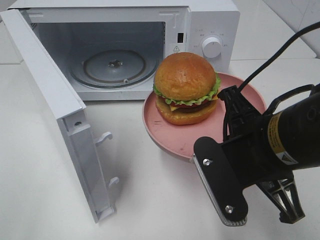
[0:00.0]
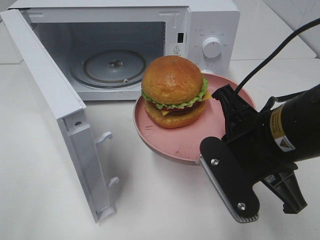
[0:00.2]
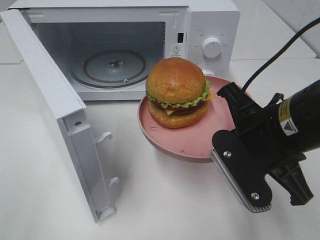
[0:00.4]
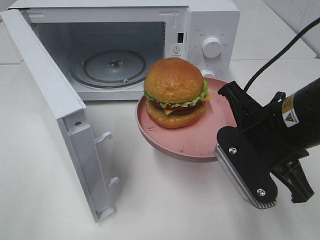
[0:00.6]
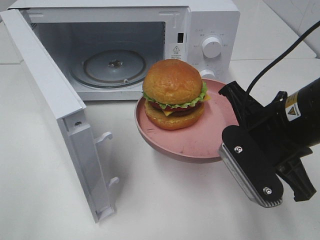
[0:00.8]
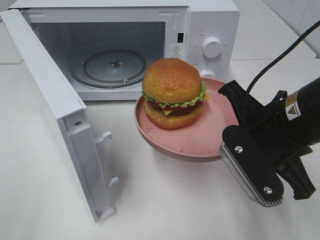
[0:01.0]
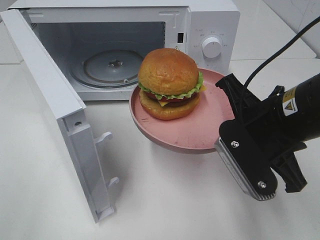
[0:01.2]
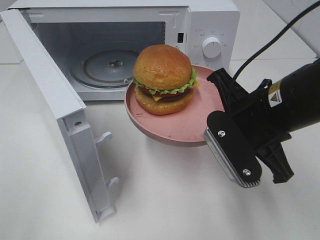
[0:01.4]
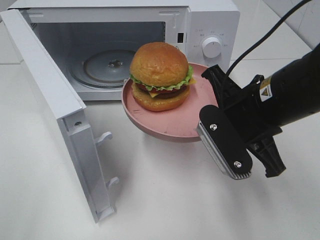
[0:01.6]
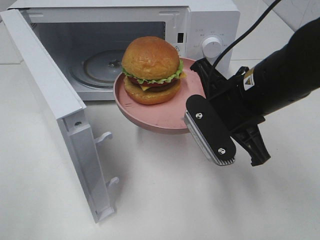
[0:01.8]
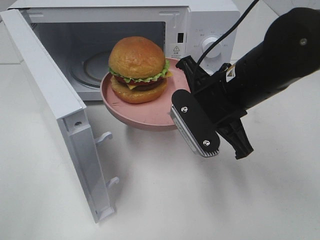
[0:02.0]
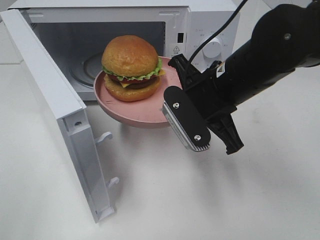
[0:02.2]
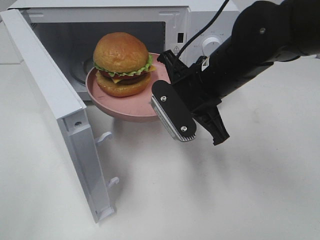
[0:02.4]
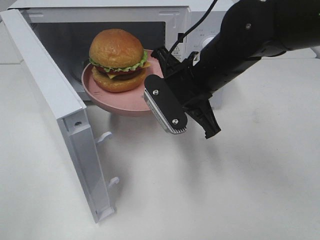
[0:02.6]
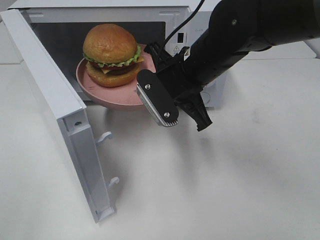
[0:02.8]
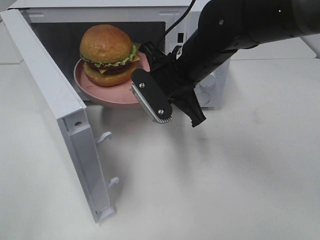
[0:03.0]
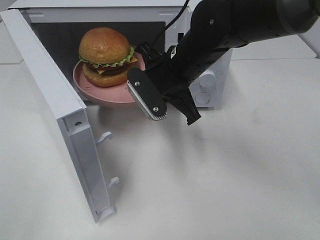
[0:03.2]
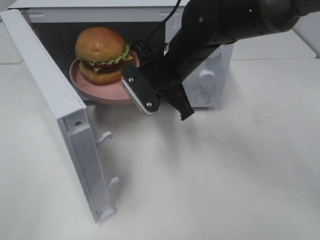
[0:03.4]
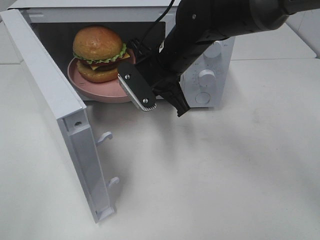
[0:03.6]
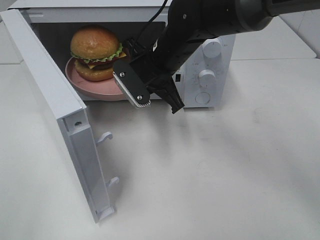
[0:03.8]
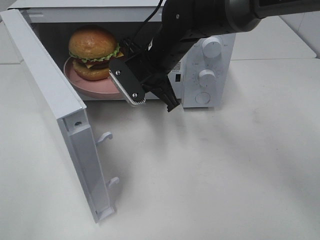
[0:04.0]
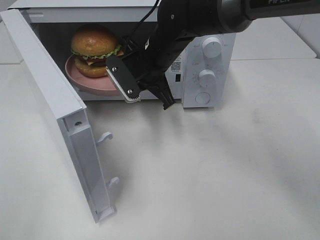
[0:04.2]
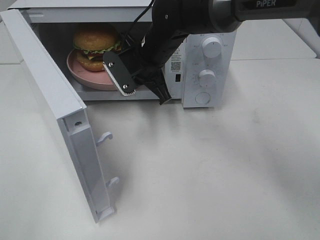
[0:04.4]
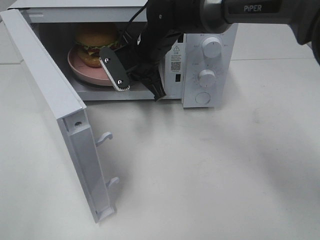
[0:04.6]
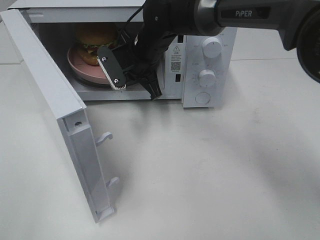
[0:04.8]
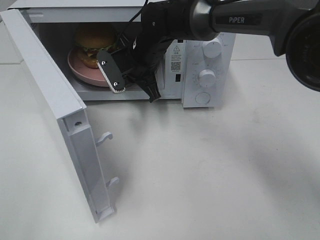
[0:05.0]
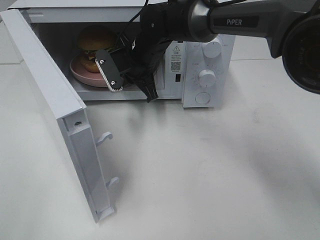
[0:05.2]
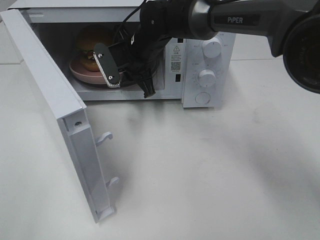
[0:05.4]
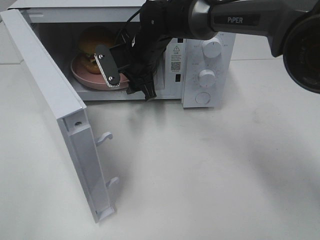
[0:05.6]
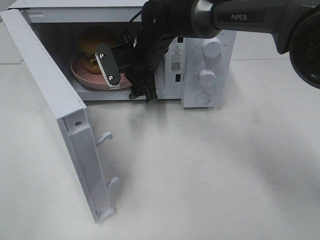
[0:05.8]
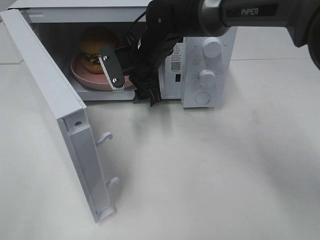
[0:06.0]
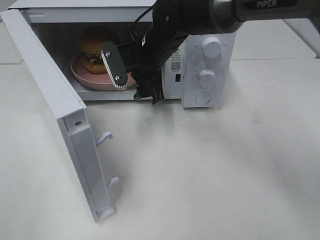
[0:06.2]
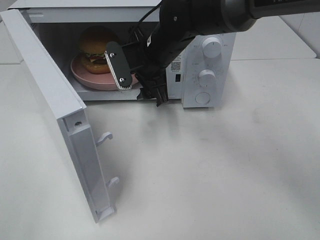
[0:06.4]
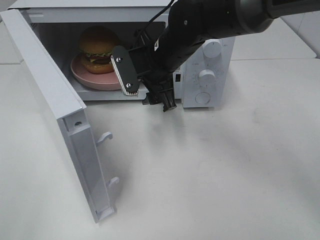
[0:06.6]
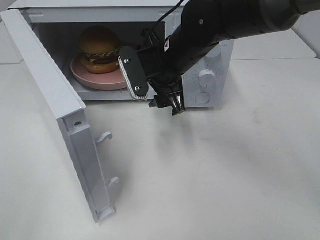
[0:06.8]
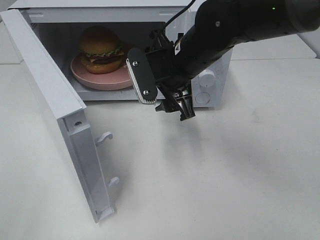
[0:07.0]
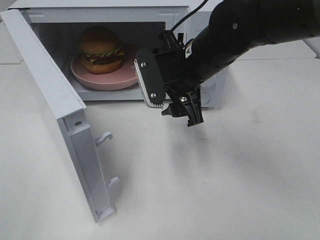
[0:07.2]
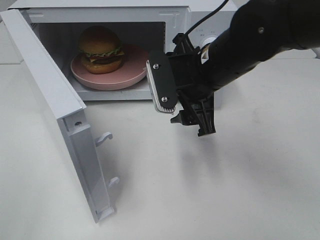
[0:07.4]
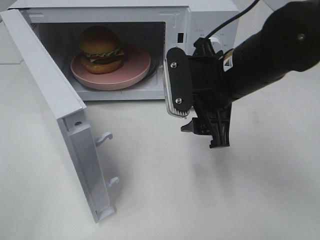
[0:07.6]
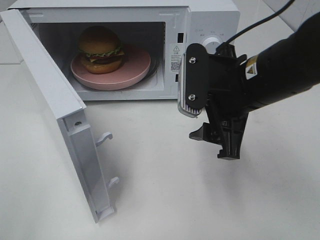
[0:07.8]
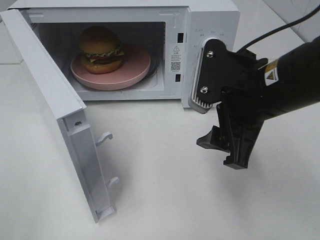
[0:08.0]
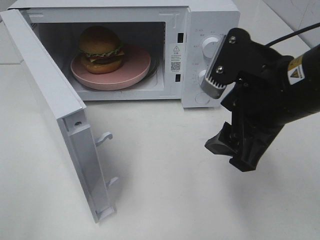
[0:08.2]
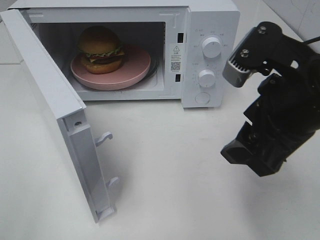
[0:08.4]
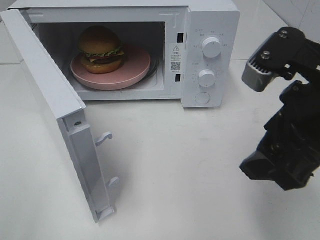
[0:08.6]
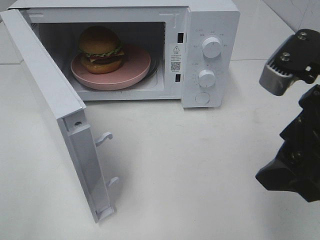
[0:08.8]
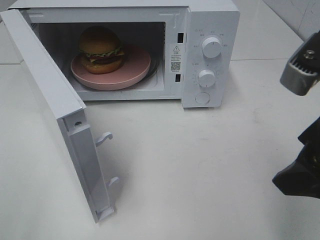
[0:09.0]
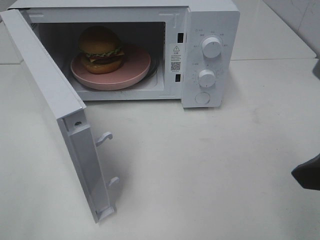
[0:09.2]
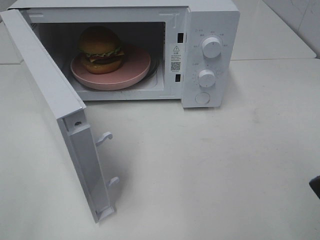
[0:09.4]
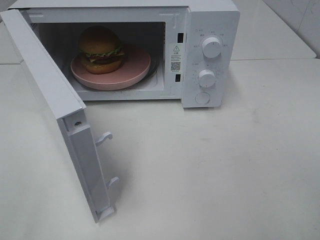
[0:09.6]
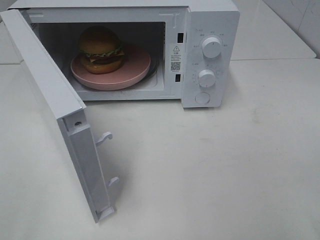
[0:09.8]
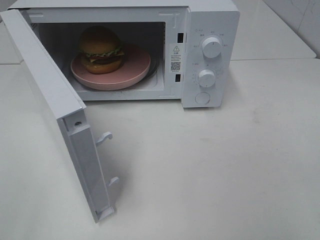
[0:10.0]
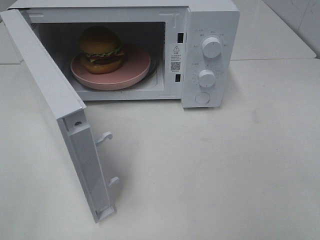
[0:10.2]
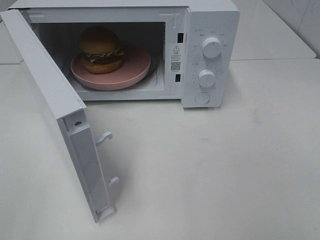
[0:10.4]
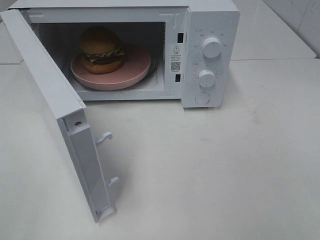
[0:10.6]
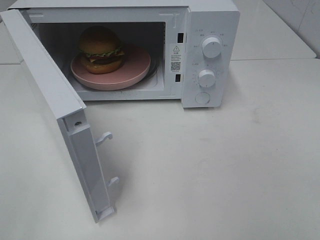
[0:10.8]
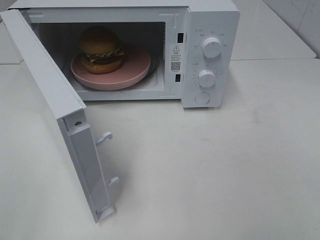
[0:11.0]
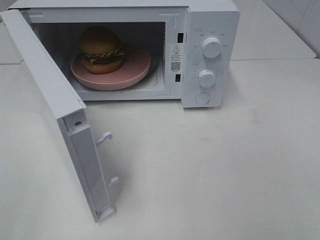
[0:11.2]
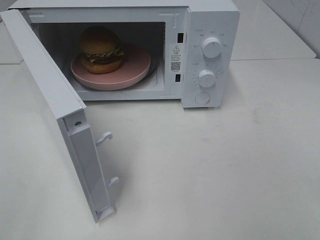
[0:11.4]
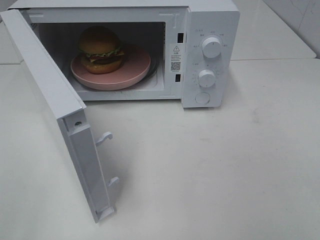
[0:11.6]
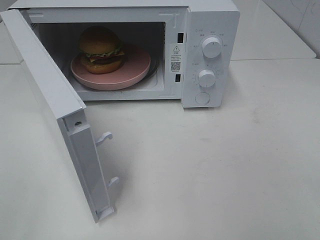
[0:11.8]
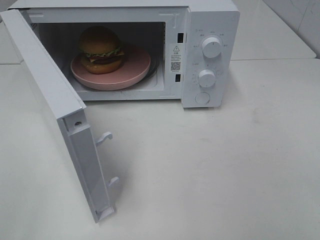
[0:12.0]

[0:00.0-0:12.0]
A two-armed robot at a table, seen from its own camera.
Task of the whole recording: Heat the burger.
Step, 0:00.0 to 0:05.6: Right hand: place the plate in the microwave.
0:00.0 to 0:01.6: The right gripper heads forward, covering approximately 5 cm.
0:01.6 to 0:03.0: The right gripper travels forward and to the left by roughly 15 cm.
0:03.0 to 0:04.4: The right gripper moves forward and to the left, about 10 cm.
0:04.4 to 0:06.0: The right gripper opens up.
0:06.0 to 0:07.6: The right gripper is displaced backward and to the right by approximately 20 cm.
0:07.6 to 0:09.0: The right gripper travels backward, to the right and upward by some 15 cm.
0:09.0 to 0:10.4: The right gripper travels backward and to the right by some 15 cm.

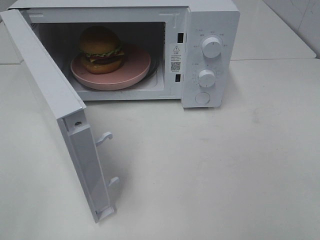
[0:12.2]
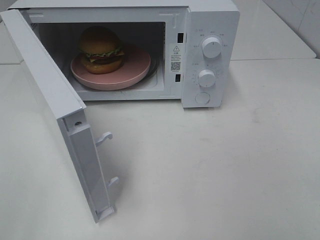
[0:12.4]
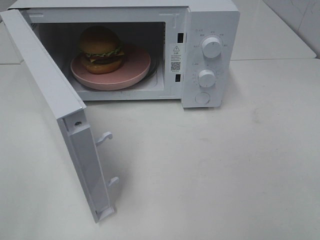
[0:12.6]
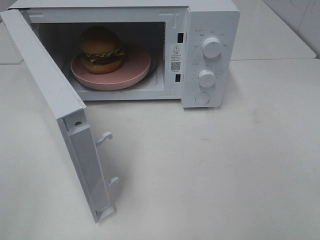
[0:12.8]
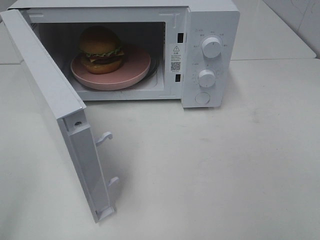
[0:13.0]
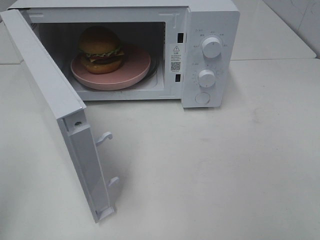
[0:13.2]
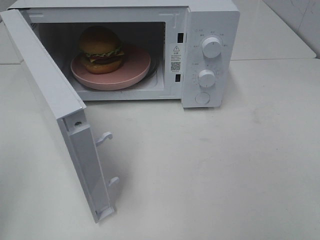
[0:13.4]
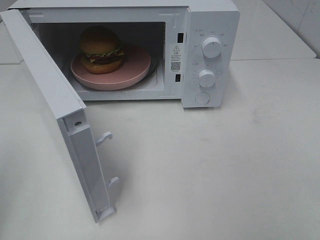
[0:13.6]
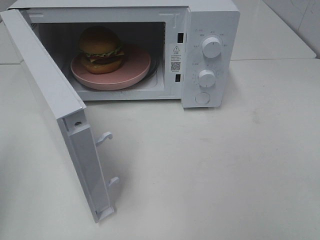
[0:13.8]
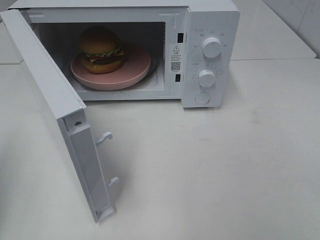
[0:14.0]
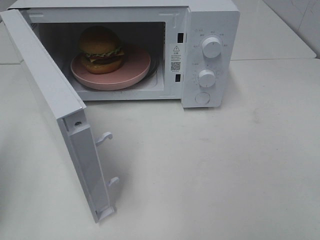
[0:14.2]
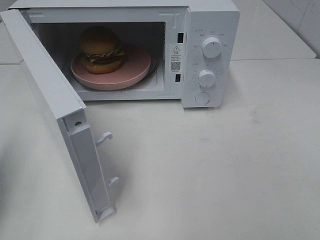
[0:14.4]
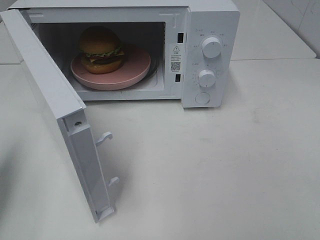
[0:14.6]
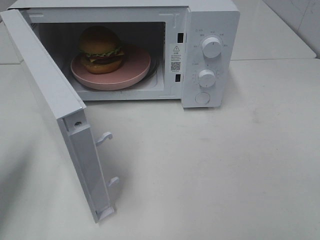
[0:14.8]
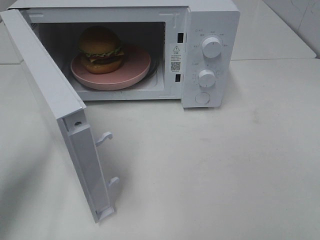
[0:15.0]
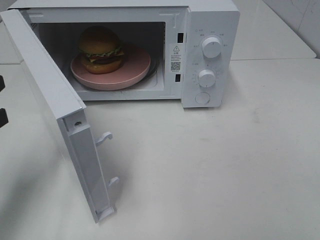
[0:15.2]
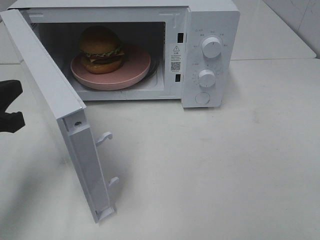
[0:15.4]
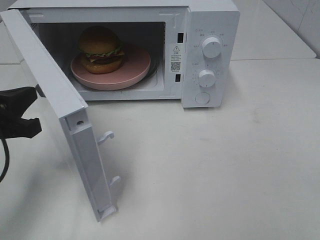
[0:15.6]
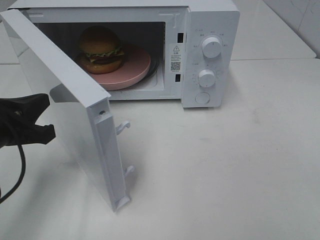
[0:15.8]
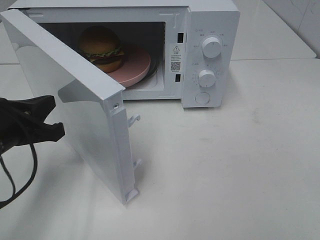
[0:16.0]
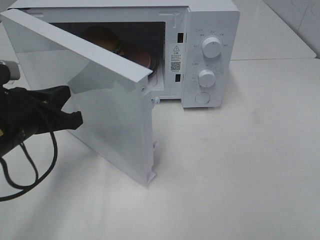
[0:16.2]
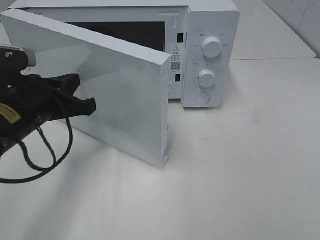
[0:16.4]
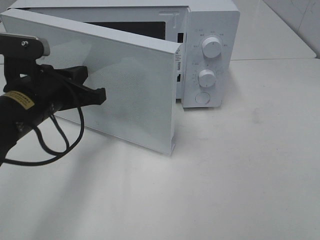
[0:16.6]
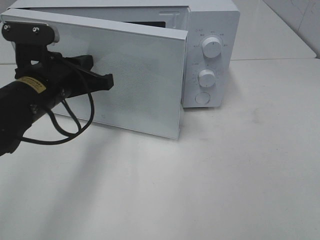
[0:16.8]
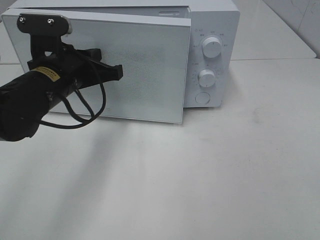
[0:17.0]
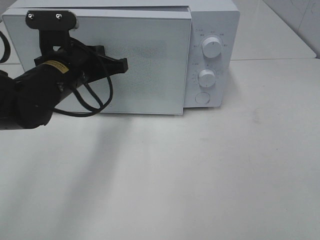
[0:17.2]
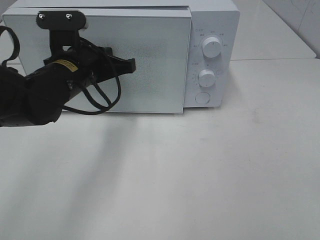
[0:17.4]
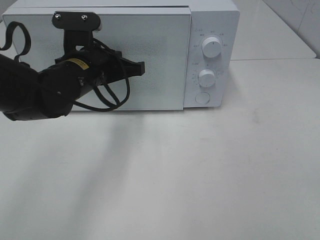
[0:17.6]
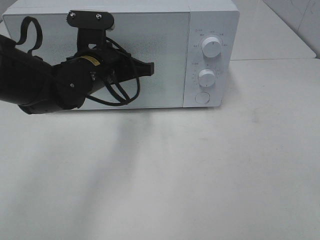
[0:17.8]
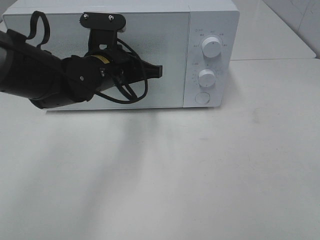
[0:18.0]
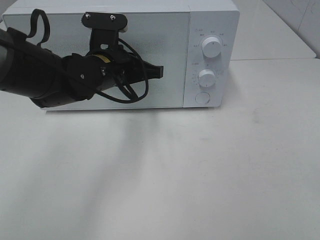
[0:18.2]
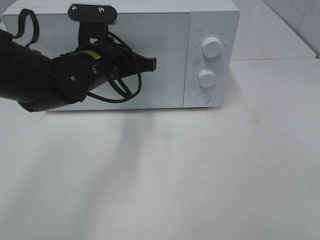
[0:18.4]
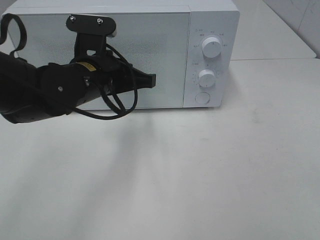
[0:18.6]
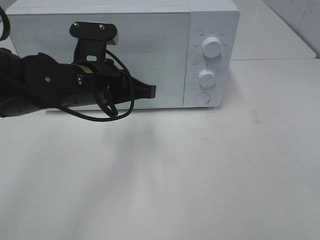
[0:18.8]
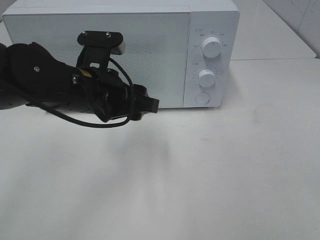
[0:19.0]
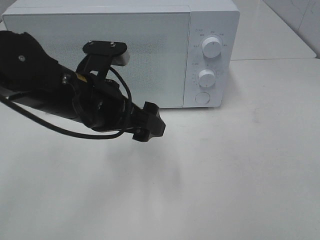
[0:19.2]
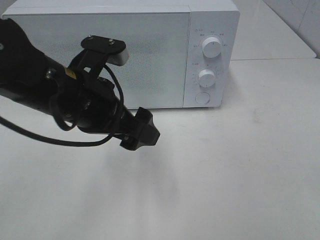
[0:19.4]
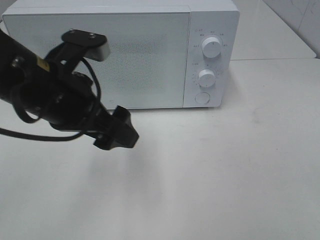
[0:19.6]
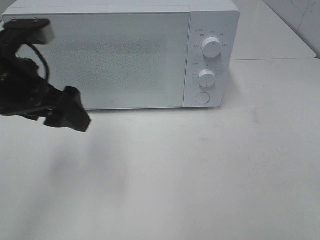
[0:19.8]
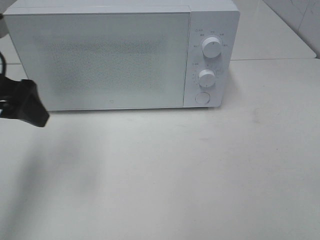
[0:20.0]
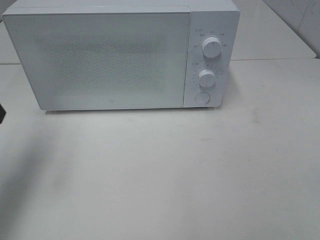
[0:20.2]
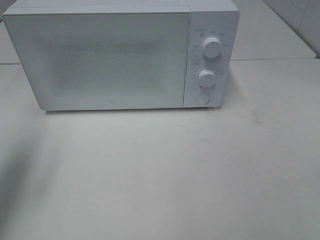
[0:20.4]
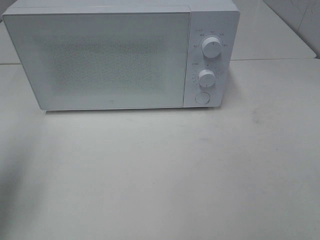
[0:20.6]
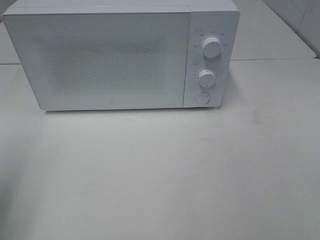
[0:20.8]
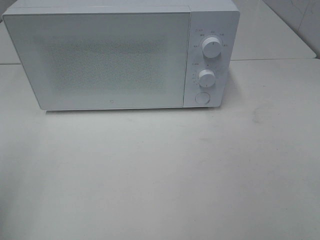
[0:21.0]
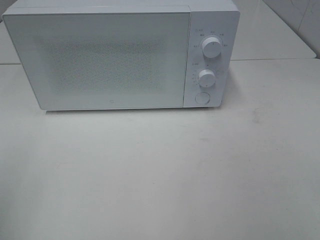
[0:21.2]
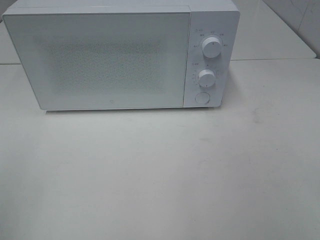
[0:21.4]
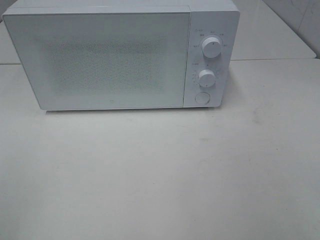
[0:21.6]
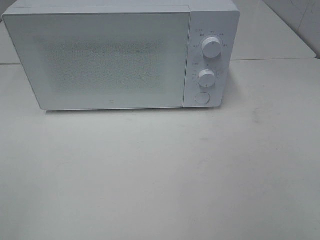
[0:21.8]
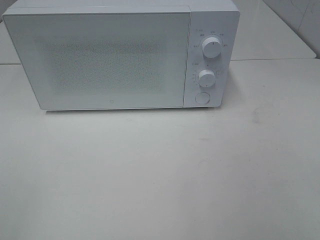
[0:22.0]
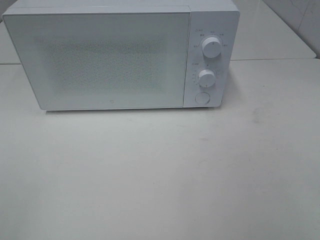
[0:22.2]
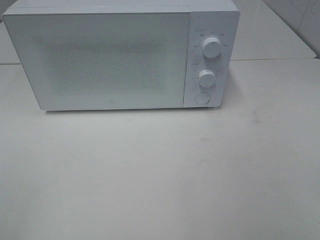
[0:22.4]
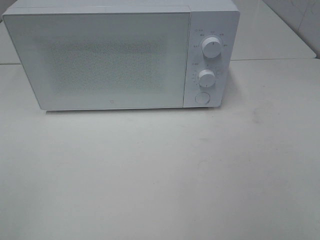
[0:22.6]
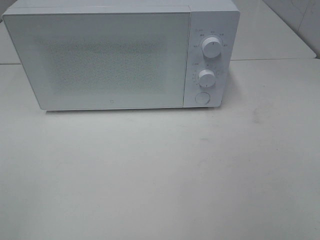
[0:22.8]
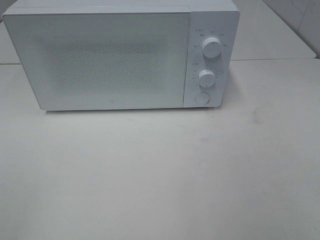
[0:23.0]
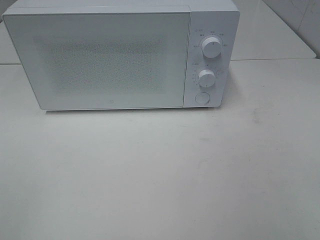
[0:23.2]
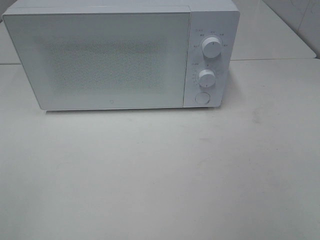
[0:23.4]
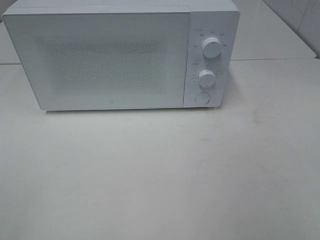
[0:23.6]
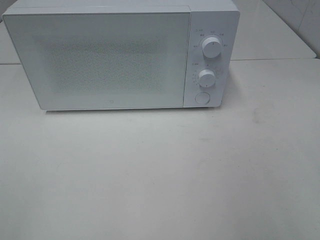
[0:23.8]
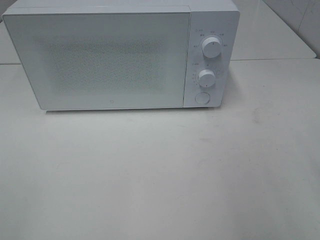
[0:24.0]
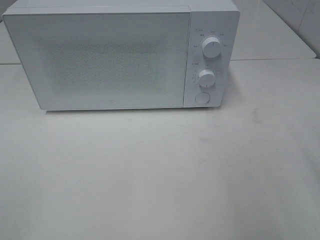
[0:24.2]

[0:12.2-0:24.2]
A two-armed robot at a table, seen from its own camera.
Task of the whole recording: Heat the burger.
Step, 0:12.2 to 0:19.0: Left hand: close the microwave door.
0:13.8 to 0:15.2: The left gripper travels forward, downward and to the right by some 10 cm.
0:15.2 to 0:16.6: The left gripper moves to the right and forward, roughly 15 cm.
0:16.6 to 0:18.2: The left gripper goes about 10 cm to the right and forward.
0:18.2 to 0:19.8: The left gripper goes roughly 15 cm to the left, backward and upward, and opens its fingers.
0:19.8 to 0:21.2: The left gripper moves backward and to the left, approximately 20 cm.
